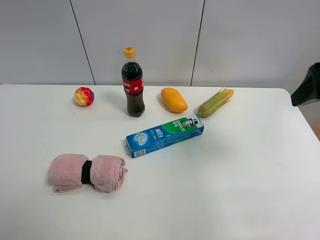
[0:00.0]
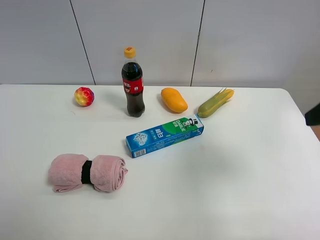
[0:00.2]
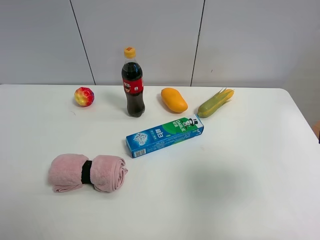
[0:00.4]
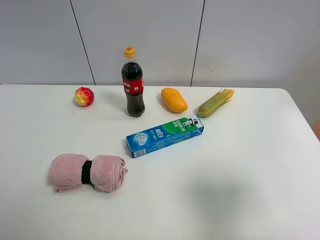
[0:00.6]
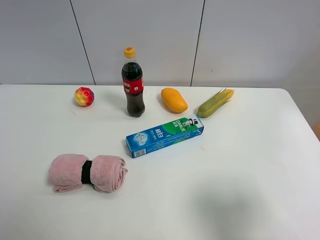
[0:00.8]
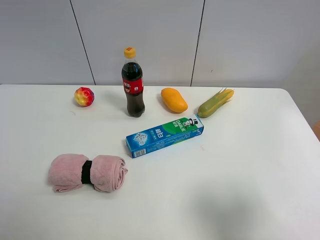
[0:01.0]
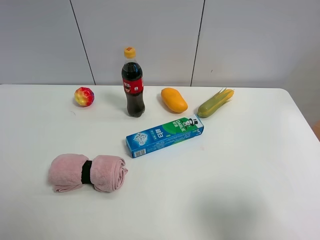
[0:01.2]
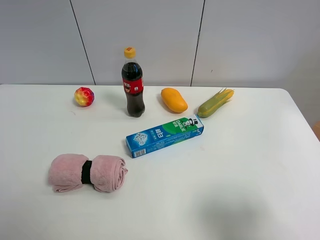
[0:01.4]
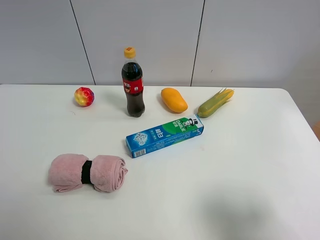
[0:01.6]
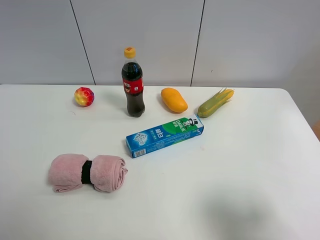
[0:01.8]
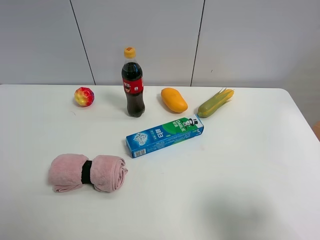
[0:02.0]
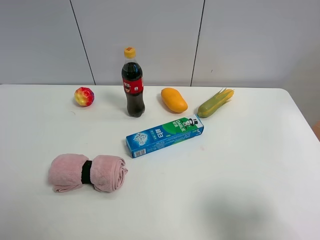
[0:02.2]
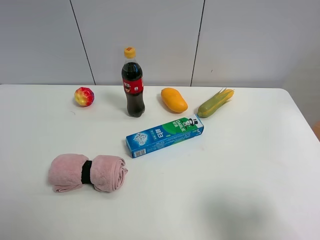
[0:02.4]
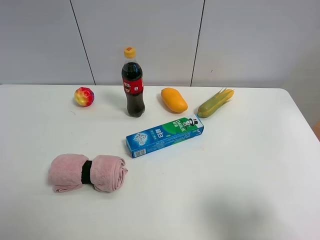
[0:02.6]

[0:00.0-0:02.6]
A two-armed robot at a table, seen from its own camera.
Task of the whole recording: the gripper move the object.
0:00.0 to 0:01.2: The right gripper moves backward and downward, approximately 20 cm.

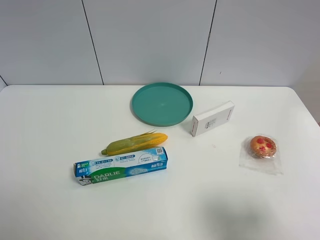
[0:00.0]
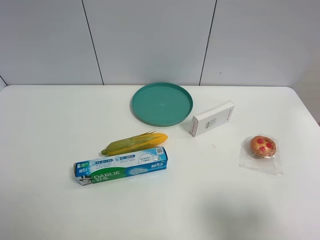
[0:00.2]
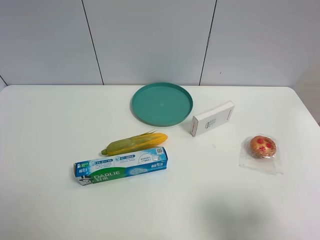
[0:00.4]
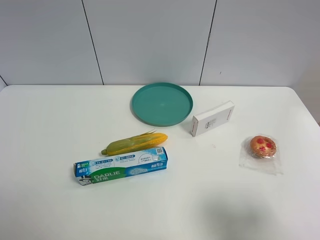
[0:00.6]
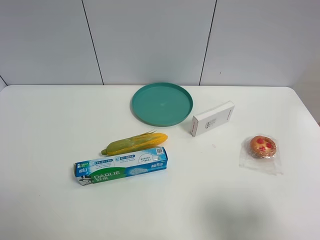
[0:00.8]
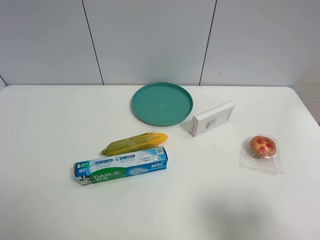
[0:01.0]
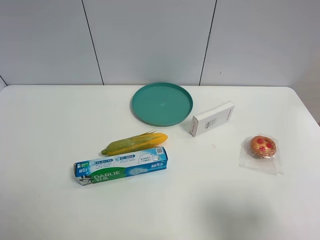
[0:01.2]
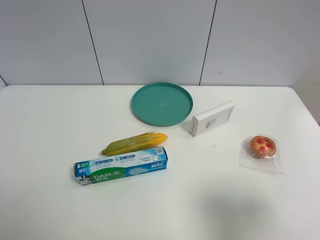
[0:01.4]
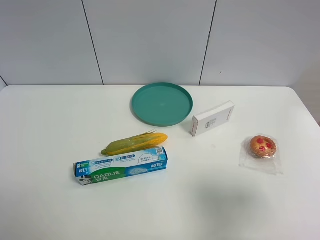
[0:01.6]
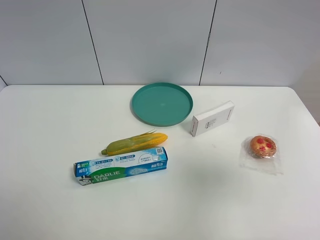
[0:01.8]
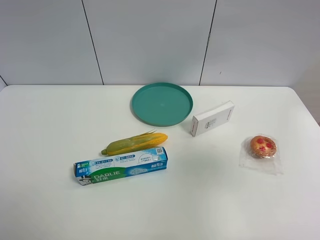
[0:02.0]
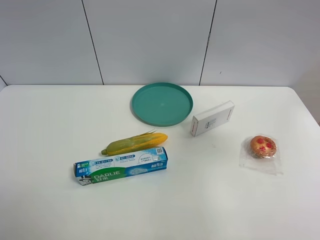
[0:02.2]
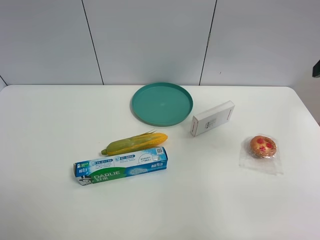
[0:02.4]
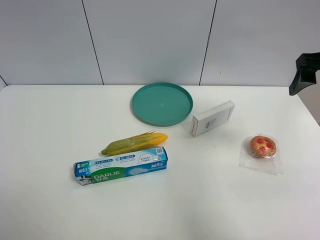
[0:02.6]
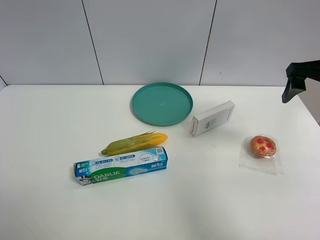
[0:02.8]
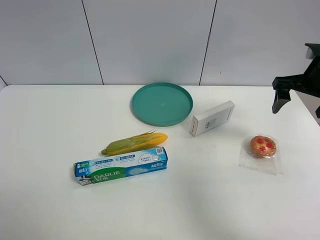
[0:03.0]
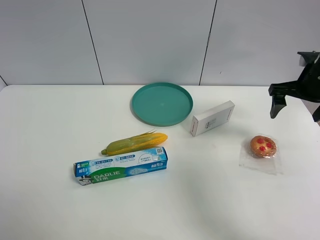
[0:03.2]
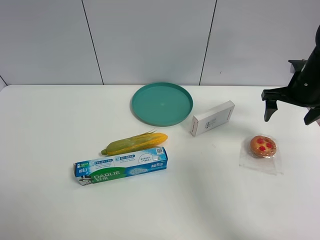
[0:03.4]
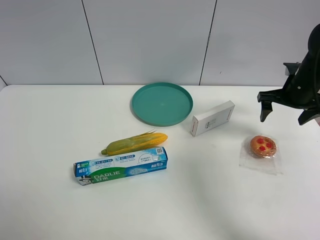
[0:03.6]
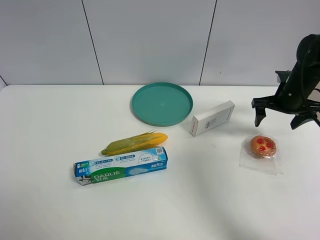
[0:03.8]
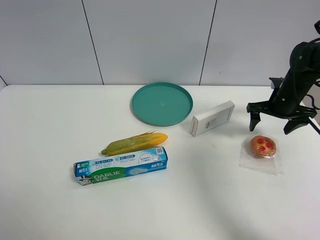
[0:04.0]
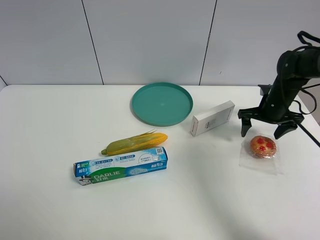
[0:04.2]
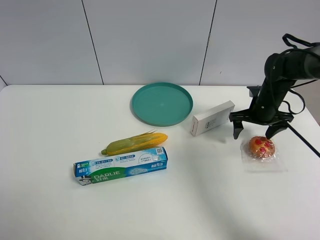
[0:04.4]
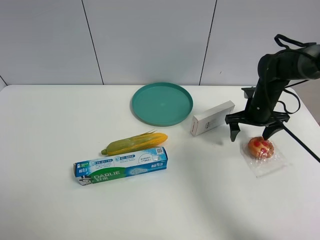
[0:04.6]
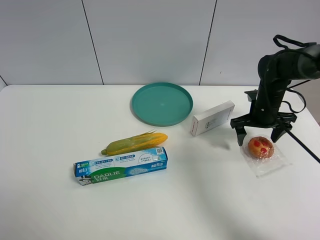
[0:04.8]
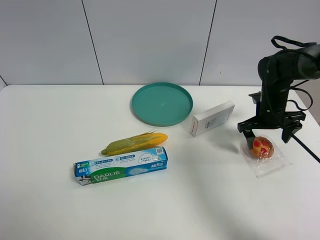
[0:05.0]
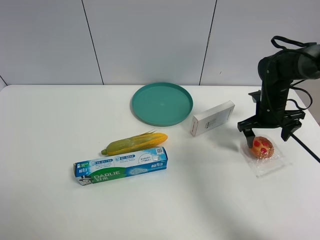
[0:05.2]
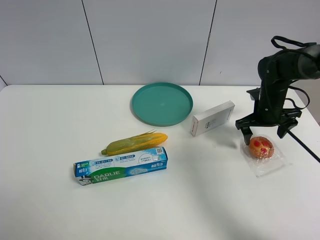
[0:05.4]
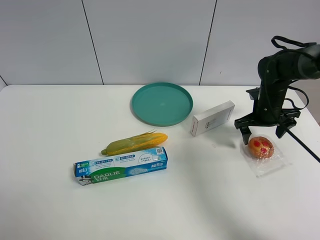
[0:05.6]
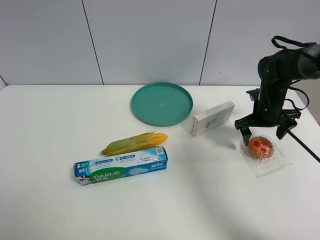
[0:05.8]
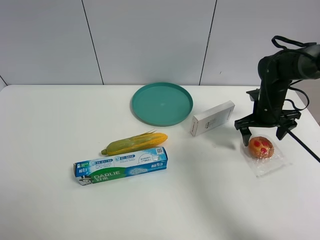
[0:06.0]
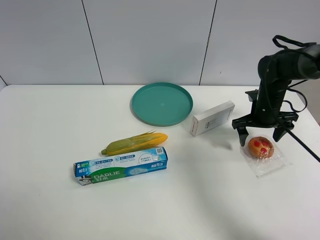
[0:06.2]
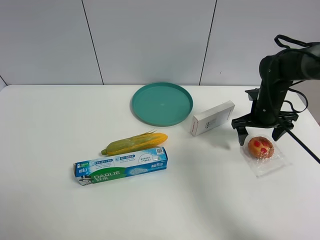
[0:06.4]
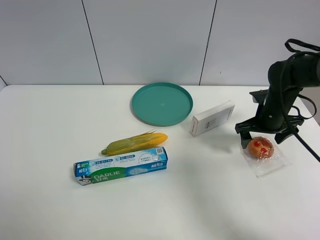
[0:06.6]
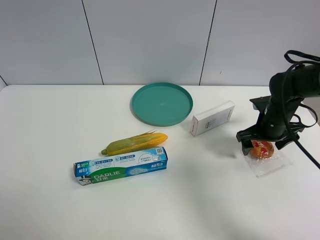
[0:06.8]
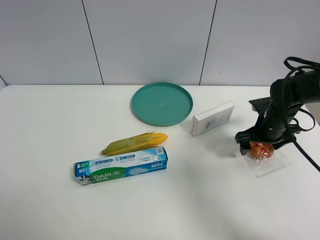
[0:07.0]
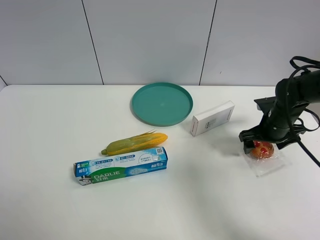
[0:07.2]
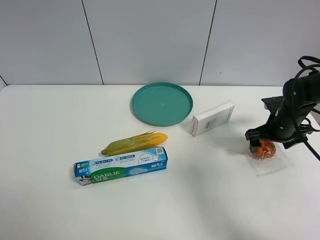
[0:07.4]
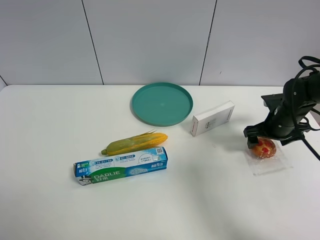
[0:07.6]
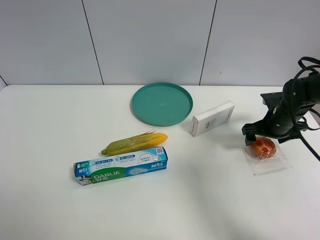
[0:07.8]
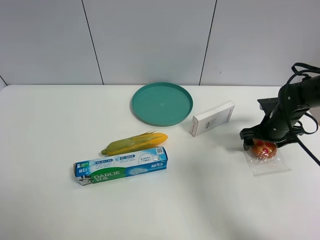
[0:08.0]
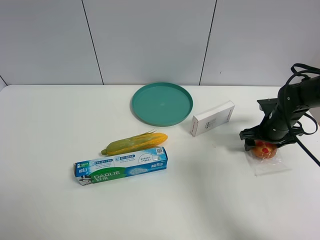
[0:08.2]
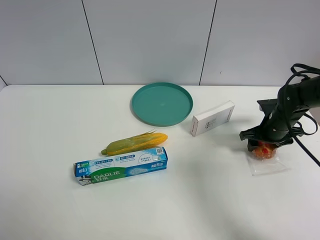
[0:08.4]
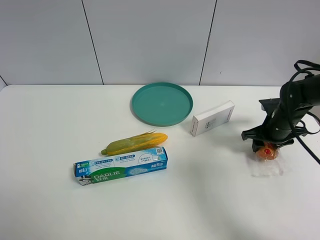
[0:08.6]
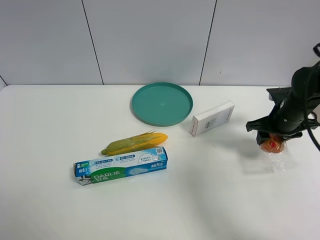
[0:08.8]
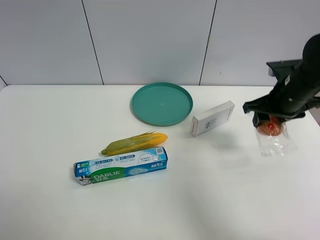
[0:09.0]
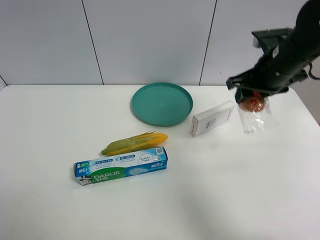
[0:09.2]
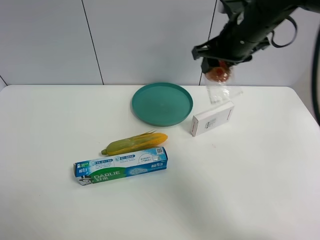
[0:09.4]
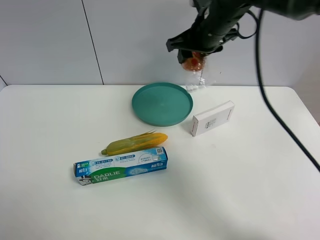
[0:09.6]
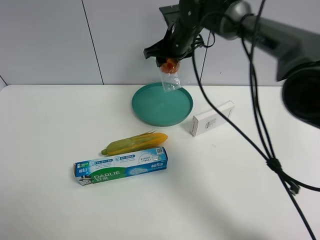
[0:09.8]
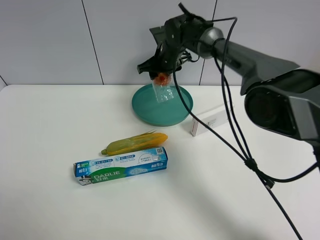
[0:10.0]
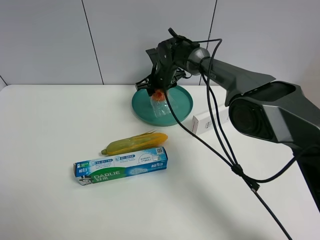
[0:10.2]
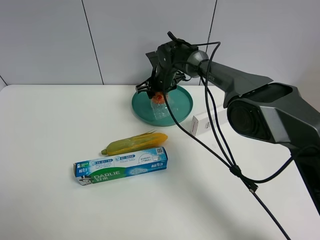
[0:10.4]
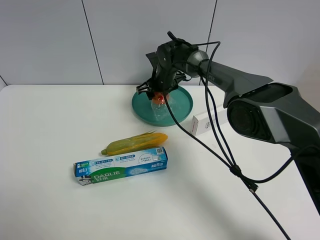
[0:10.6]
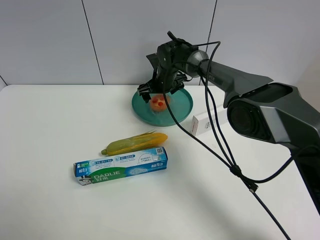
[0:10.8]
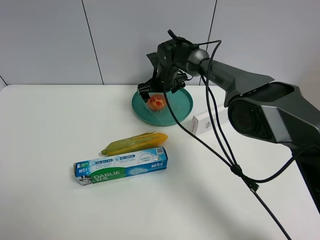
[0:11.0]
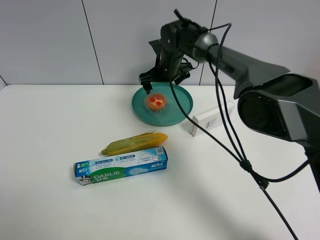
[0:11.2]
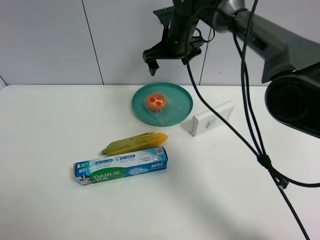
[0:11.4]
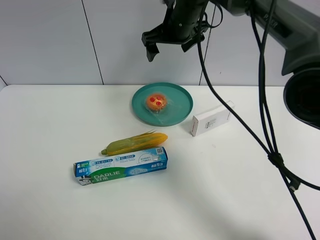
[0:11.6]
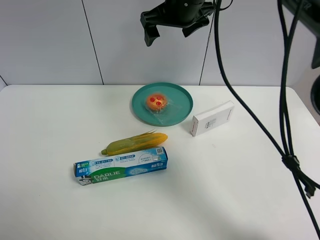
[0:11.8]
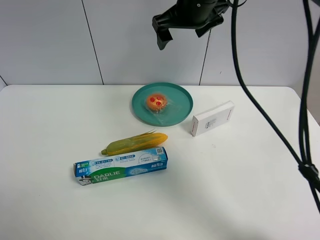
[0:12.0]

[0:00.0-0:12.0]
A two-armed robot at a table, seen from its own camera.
Task of the whole recording: the gripper move the object.
Step, 0:00.0 to 0:08.4: Grasp the egg yolk pastry with the right gripper.
Step, 0:08.6 to 0:11.2: Place the egg yolk pastry into the green plate with the right gripper.
0:00.0 to 0:01.6: The right gripper goes about 5 cm upward.
0:01.6 to 0:03.0: The right gripper shifts approximately 25 cm forward.
0:03.0 to 0:04.4: The right gripper travels downward and forward by approximately 15 cm.
0:04.4 to 0:06.0: The grippers stay close to where they were, moving slightly.
0:06.0 to 0:07.6: The grippers move only a little.
0:07.6 to 0:09.0: The right gripper heads upward, covering approximately 10 cm, and closes.
0:09.0 to 0:10.4: The right gripper is displaced to the left, forward and downward by roughly 30 cm.
0:10.4 to 0:12.0: The right gripper is displaced upward and backward by roughly 25 cm, and opens its fingers.

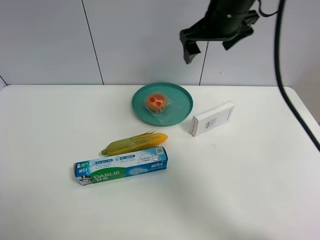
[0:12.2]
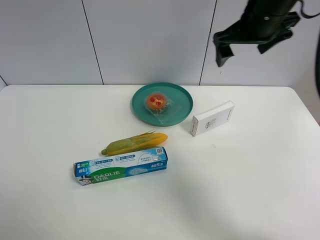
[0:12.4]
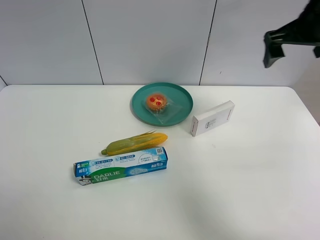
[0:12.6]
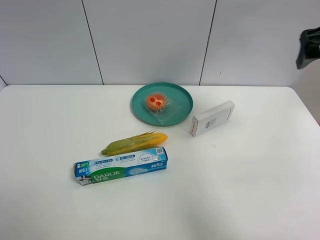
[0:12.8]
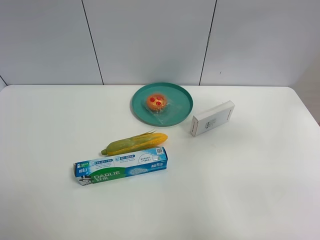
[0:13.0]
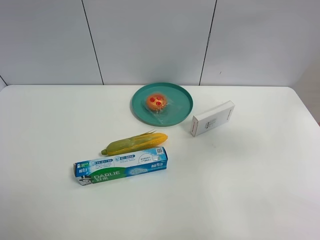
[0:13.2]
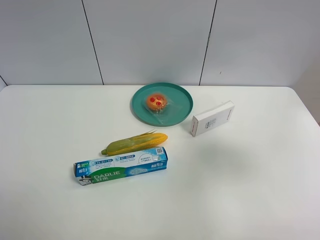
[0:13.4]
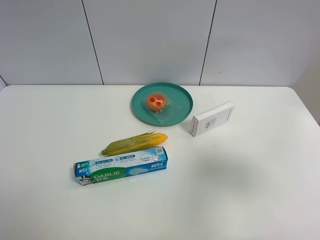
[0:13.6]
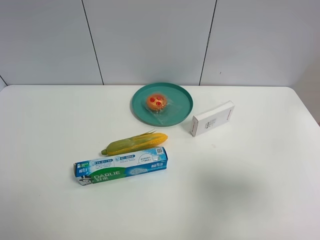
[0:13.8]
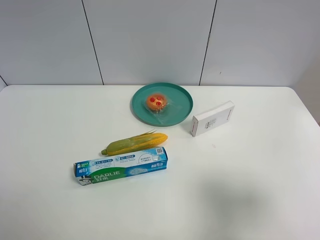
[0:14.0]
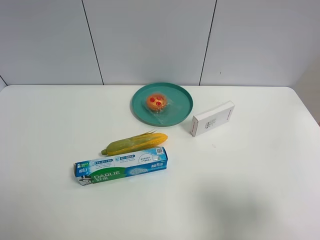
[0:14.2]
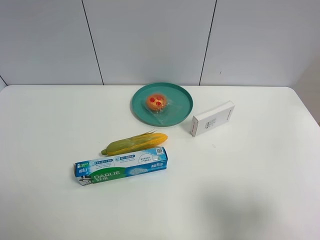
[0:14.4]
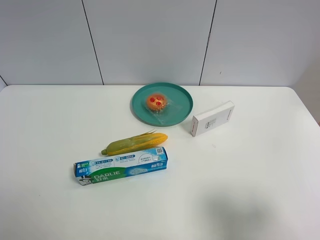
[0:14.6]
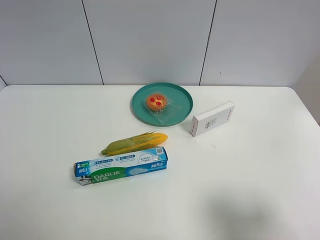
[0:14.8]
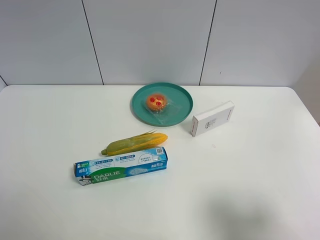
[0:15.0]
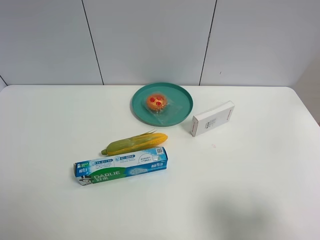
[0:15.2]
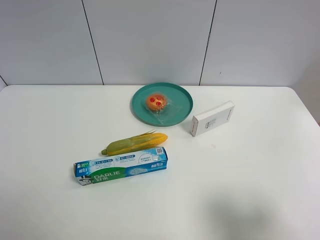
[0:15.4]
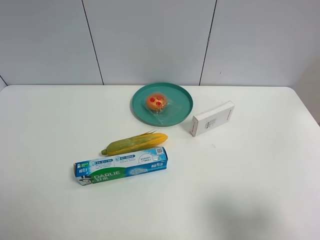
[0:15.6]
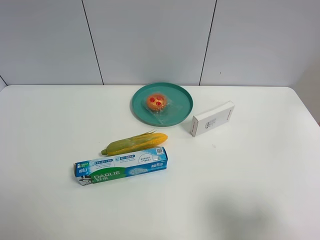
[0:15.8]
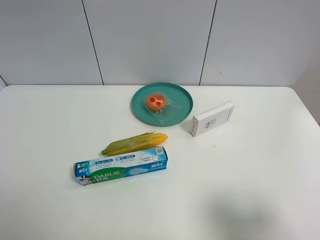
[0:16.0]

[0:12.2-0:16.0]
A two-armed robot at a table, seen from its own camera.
Task of the whole recording: the gripper move the object.
0:12.2 to 0:13.4: The right gripper travels backward and to the right by approximately 30 cm.
0:13.4 to 0:14.8: The right gripper is displaced backward and downward by roughly 20 cm.
0:14.8 to 0:16.0: Neither gripper changes place.

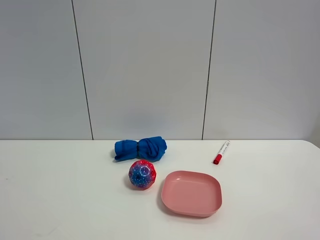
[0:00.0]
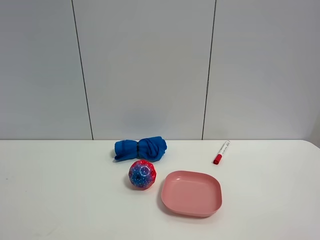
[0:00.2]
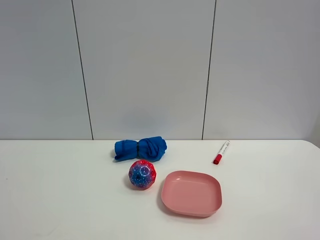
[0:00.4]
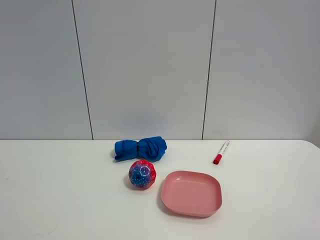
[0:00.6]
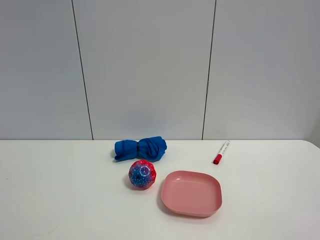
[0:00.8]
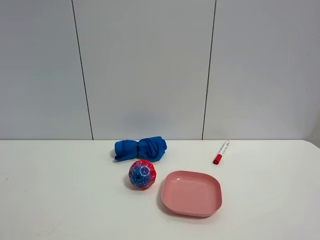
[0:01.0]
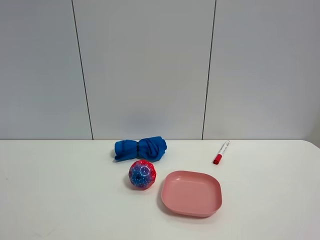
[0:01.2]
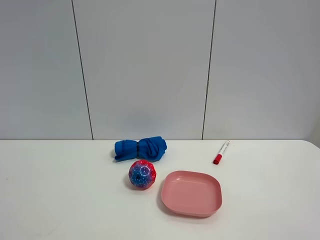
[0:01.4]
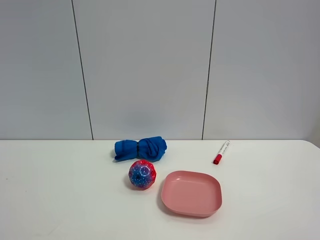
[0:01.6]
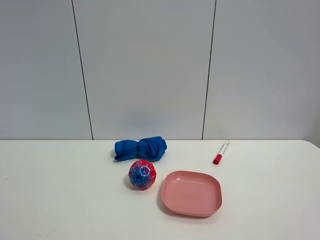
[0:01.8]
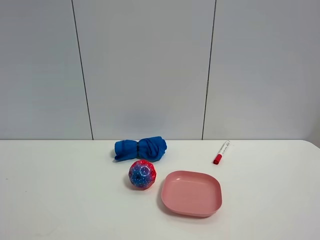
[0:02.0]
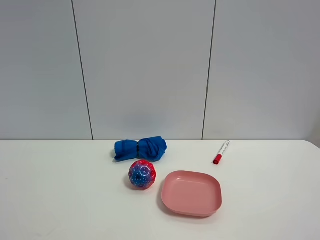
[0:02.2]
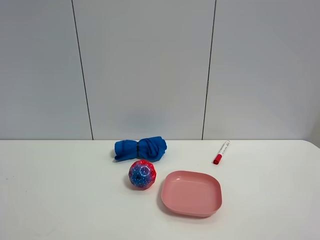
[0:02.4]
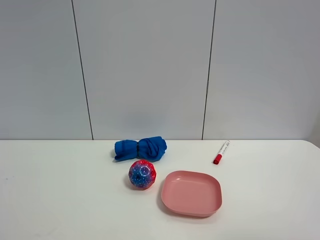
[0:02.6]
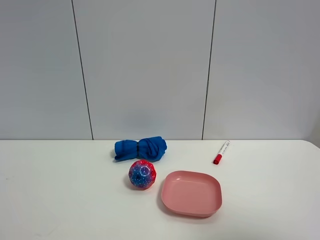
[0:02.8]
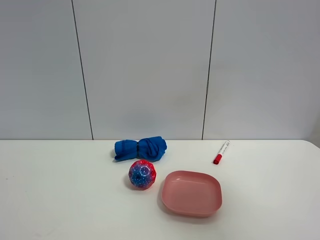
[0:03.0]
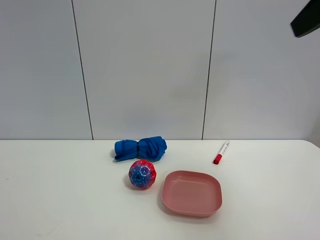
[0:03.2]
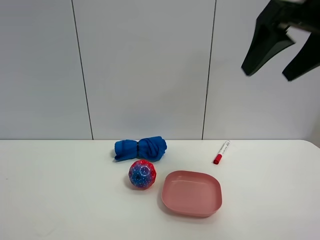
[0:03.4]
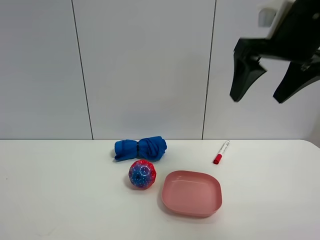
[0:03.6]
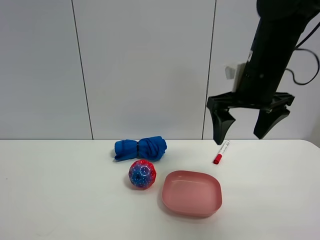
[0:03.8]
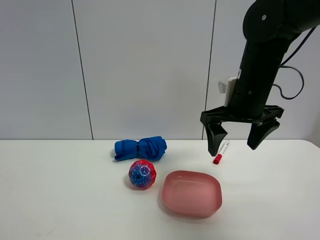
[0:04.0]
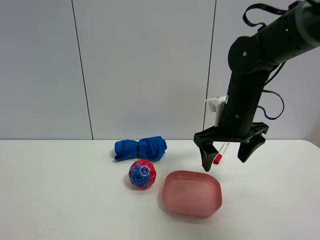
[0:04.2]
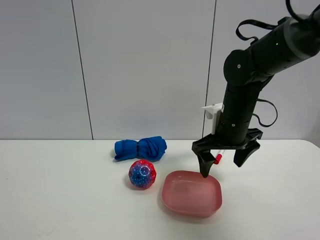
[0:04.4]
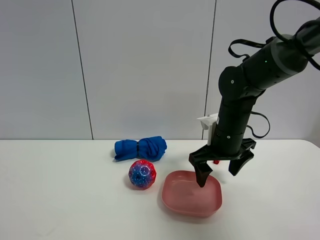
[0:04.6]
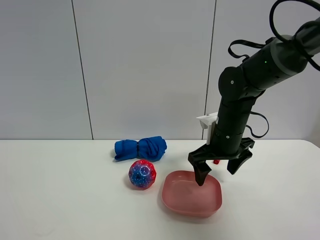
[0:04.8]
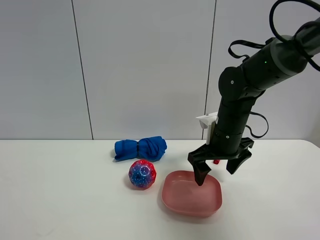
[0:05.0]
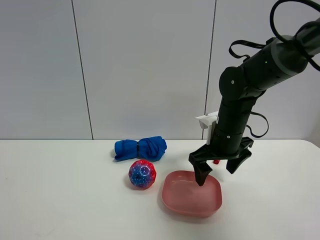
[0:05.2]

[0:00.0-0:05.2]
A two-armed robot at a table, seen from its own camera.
Task of the whole recording: the gripper move the object.
0:00.0 to 0:01.8: The two grippers keep their place.
0:01.8 to 0:03.4: The right gripper shifts roughly 25 cm forward.
0:03.4 to 0:05.2: The right gripper goes roughly 25 cm downward and forward.
